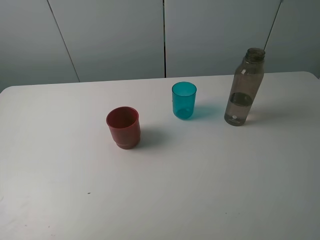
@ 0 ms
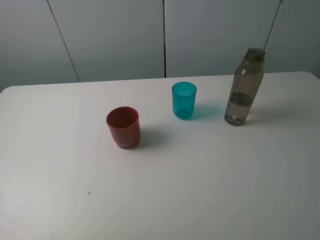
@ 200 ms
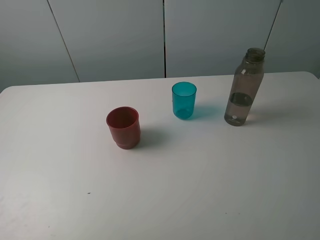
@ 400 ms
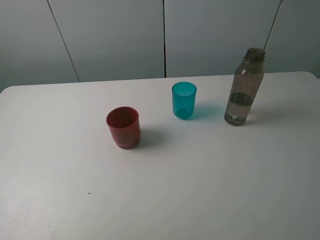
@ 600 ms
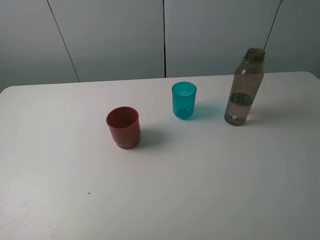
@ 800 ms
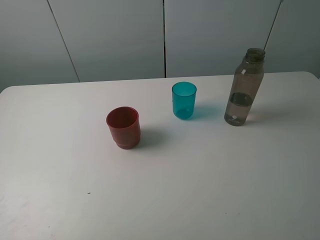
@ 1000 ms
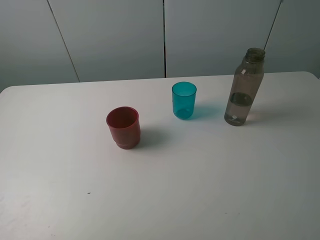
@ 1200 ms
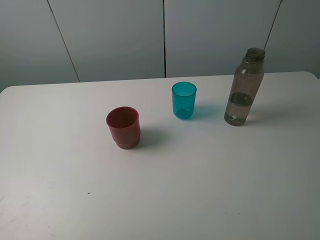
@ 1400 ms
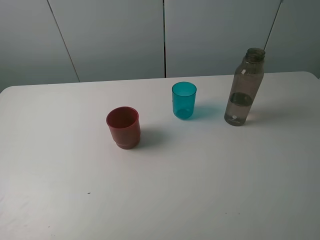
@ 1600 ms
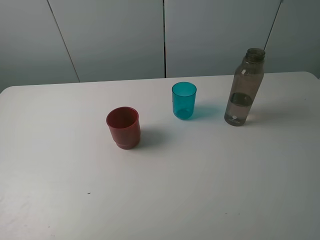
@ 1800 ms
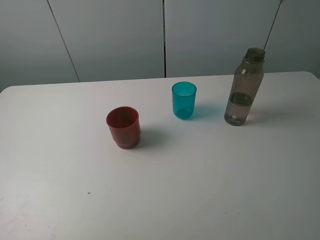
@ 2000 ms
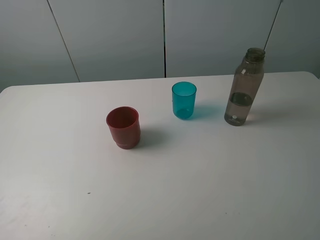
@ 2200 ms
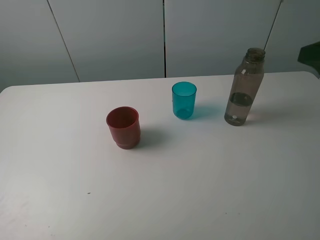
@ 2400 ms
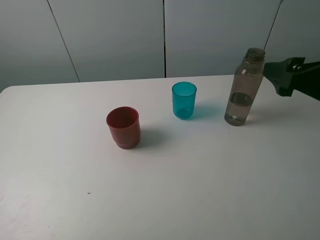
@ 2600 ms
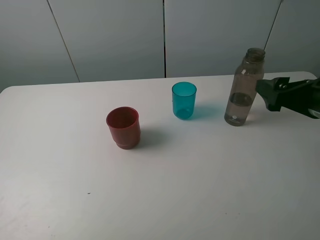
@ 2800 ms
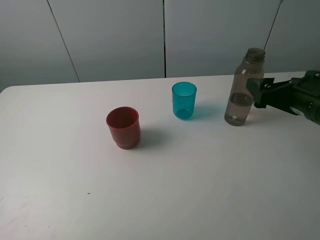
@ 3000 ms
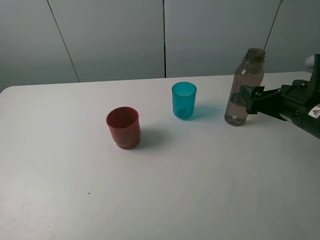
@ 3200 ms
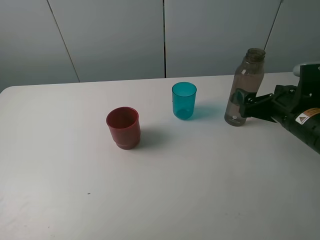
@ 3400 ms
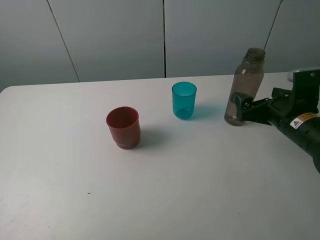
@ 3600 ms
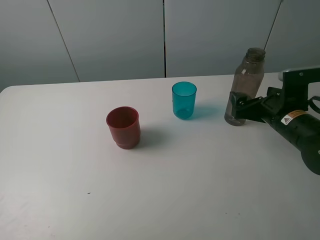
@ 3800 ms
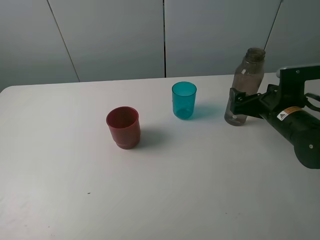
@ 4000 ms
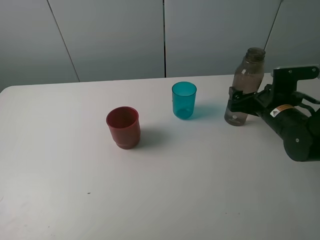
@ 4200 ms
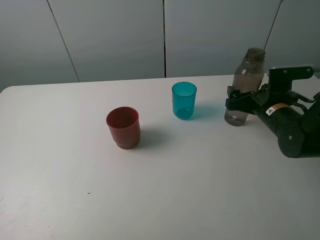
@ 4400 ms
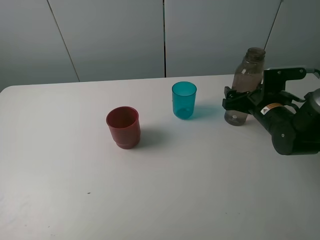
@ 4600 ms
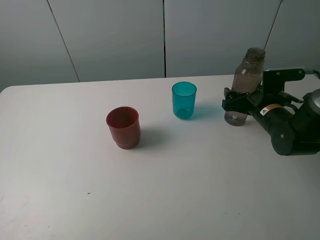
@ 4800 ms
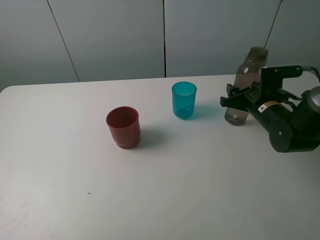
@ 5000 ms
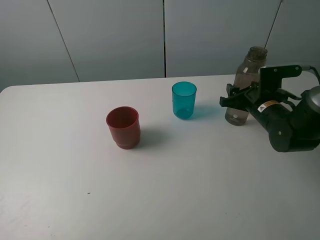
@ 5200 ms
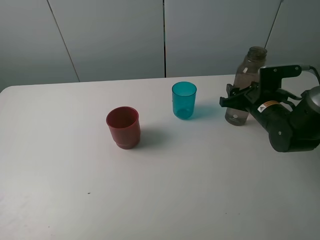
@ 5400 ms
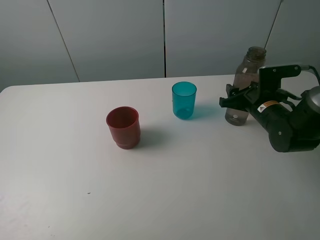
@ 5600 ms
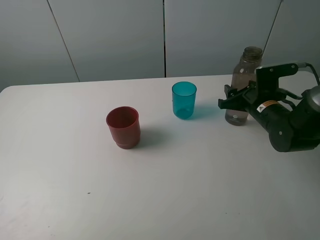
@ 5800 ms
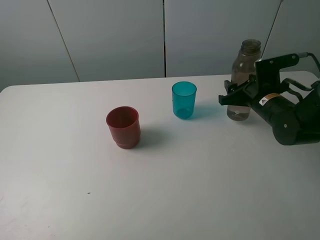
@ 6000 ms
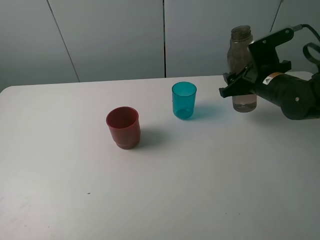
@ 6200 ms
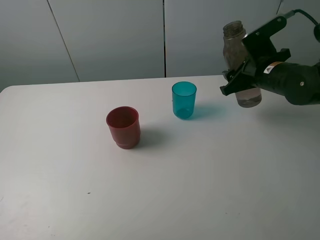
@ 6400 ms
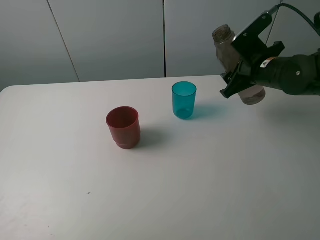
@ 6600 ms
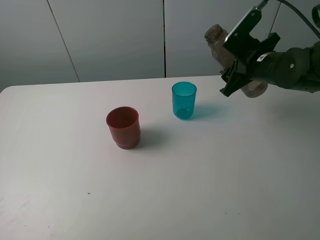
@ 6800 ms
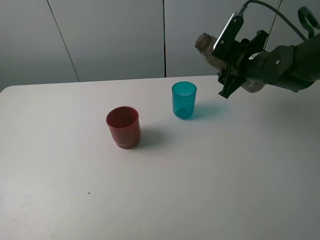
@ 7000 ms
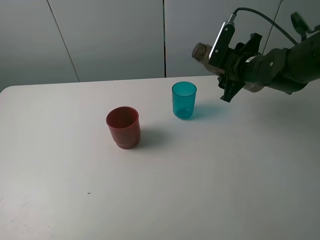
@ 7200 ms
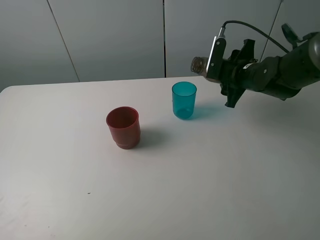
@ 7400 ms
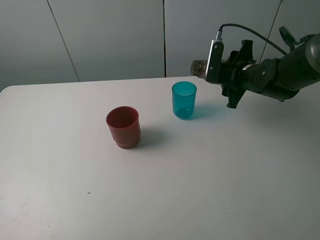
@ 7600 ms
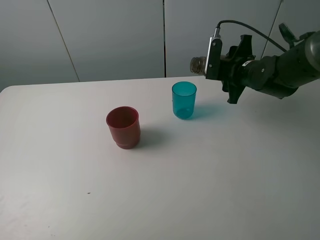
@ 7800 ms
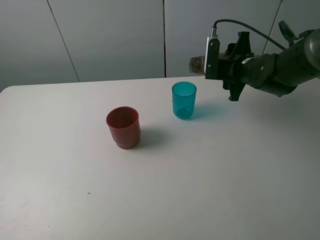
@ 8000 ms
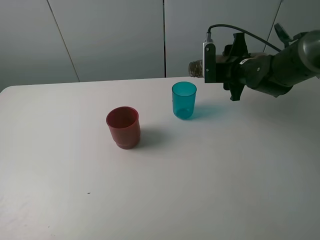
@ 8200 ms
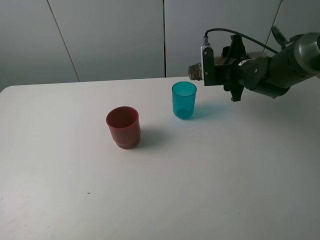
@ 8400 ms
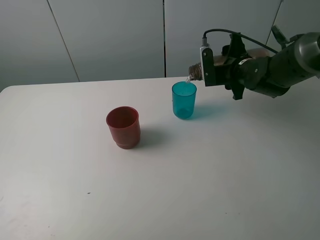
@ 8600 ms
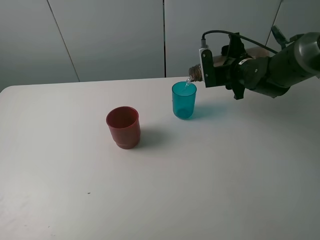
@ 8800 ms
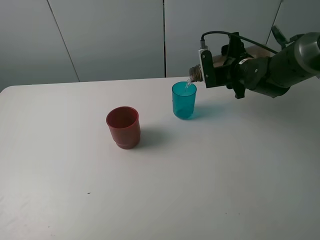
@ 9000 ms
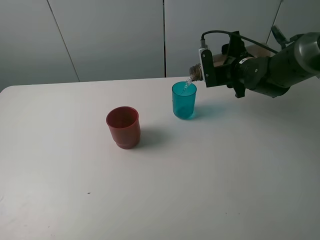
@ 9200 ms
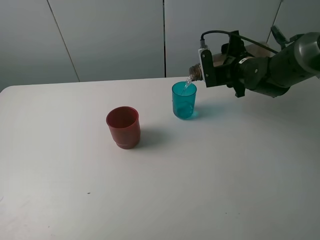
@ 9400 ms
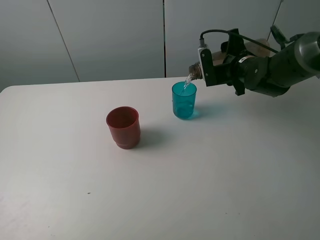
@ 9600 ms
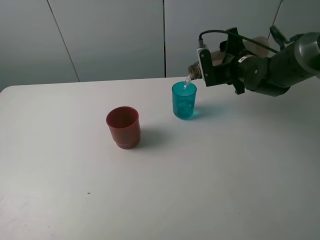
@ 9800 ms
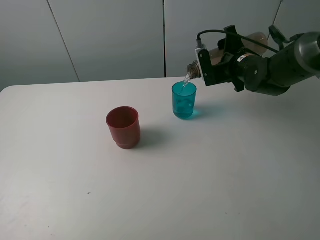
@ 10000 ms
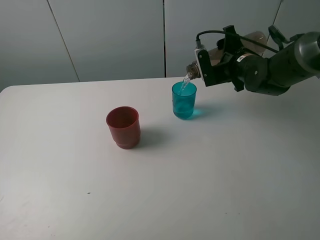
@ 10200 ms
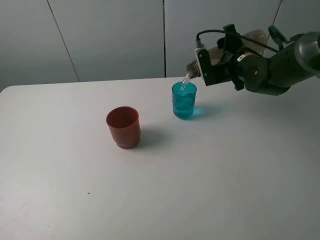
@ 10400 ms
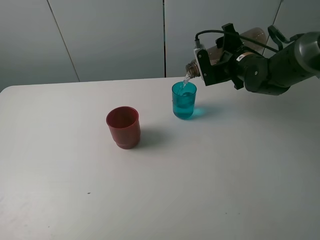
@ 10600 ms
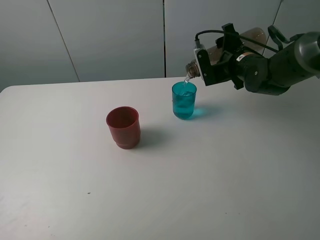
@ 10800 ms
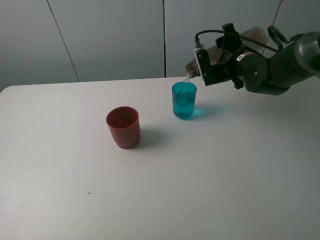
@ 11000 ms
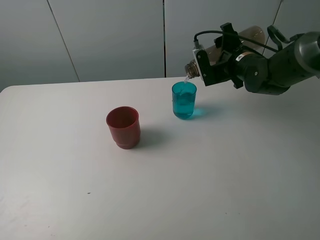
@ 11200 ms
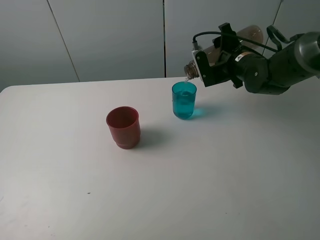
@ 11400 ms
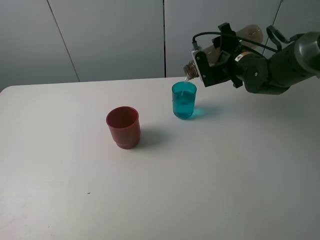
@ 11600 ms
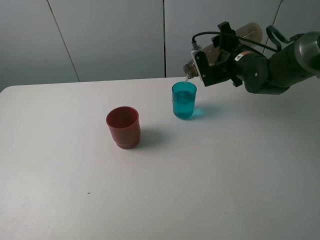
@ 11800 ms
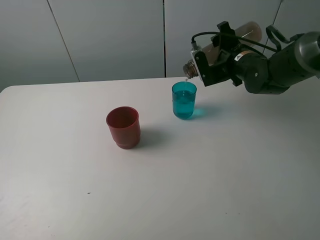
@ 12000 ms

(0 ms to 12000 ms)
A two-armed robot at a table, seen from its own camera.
Task of the whole recording: pick up the bottle and pour water into the cup, then pick up the cup containing water and pour it into another cup.
Step, 0 ms - 5200 ms: Grasp the brown bottle with the right gripper.
0 ms - 1600 ms: The two grippers keep their place.
1600 ms - 3000 ms: The right gripper is displaced forward and downward by about 25 cm.
3000 ms - 4400 ms: The right gripper shifts about 10 cm downward and forward.
4400 ms - 6000 ms: The right gripper closes.
6000 ms - 7600 ms: The right gripper shifts by some 5 cm.
9000 ms - 12000 ms: The grippers move only a little.

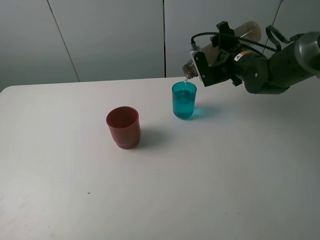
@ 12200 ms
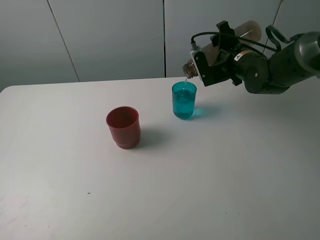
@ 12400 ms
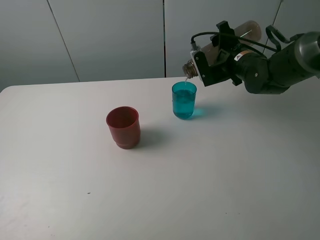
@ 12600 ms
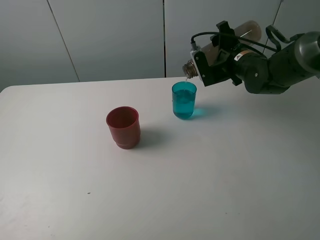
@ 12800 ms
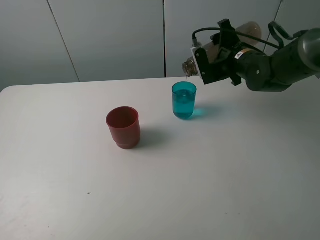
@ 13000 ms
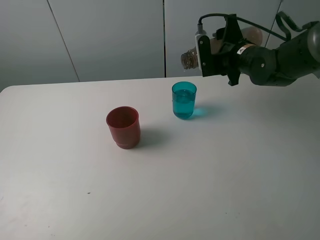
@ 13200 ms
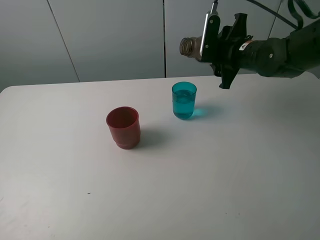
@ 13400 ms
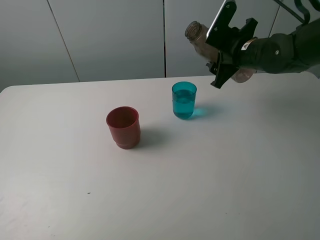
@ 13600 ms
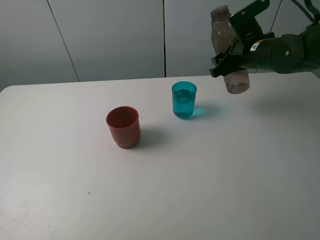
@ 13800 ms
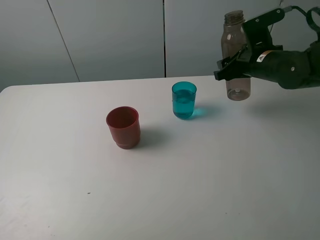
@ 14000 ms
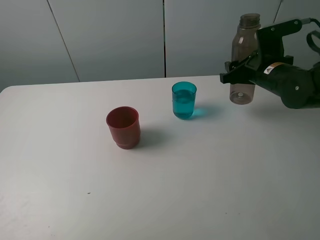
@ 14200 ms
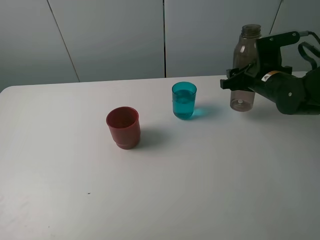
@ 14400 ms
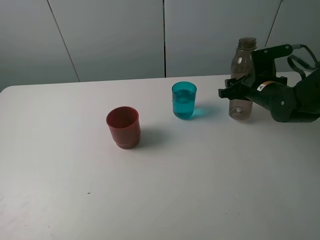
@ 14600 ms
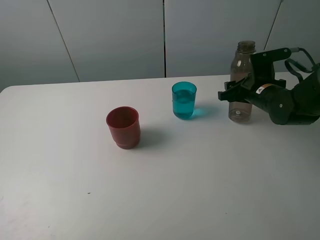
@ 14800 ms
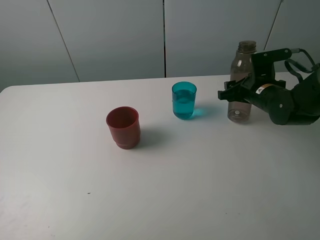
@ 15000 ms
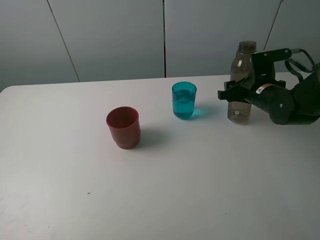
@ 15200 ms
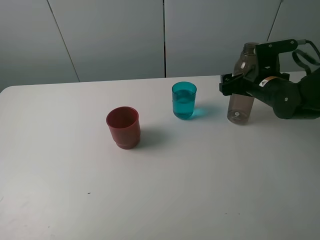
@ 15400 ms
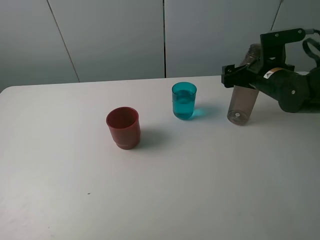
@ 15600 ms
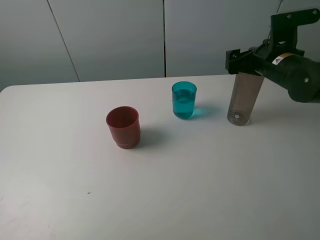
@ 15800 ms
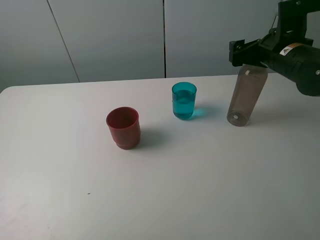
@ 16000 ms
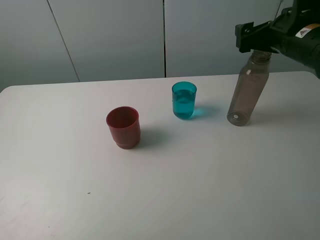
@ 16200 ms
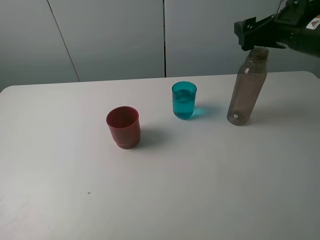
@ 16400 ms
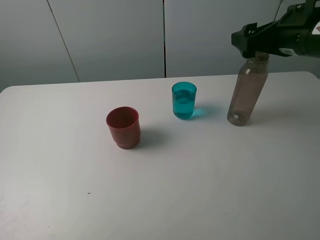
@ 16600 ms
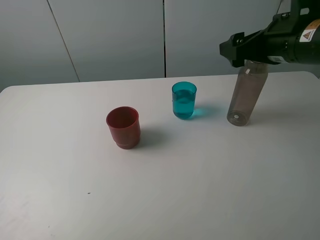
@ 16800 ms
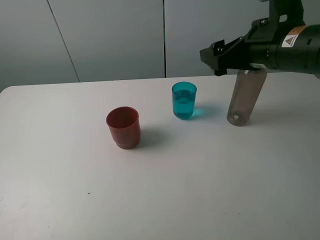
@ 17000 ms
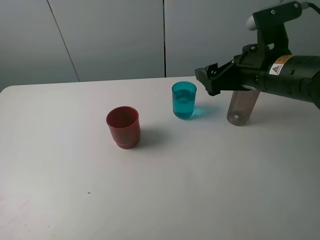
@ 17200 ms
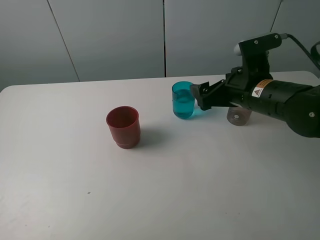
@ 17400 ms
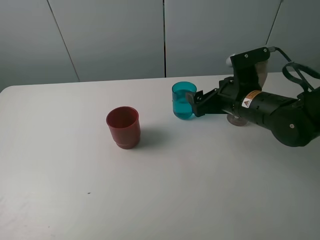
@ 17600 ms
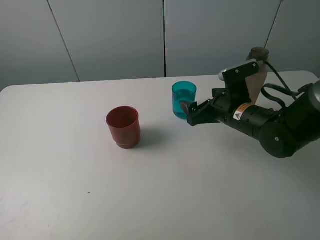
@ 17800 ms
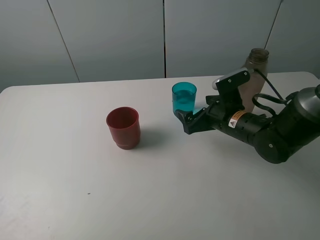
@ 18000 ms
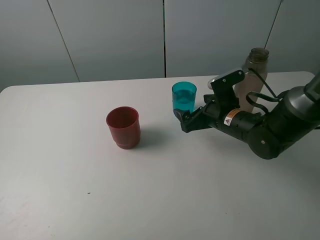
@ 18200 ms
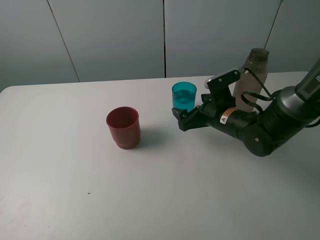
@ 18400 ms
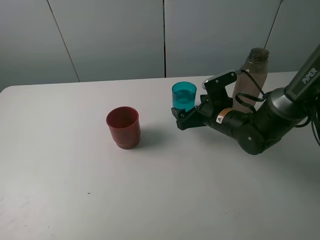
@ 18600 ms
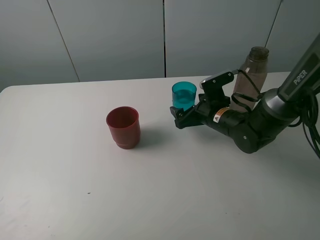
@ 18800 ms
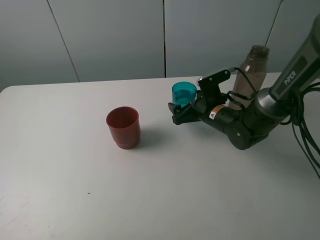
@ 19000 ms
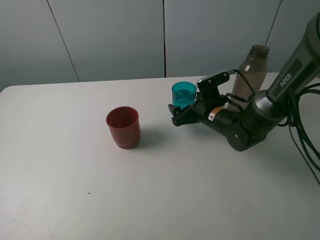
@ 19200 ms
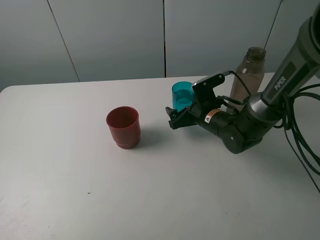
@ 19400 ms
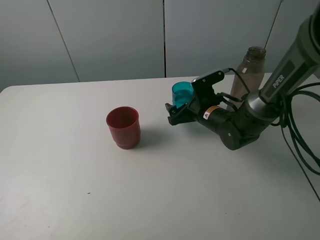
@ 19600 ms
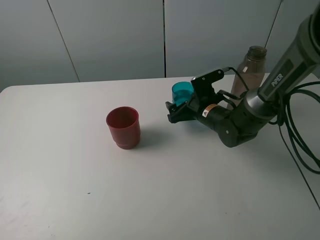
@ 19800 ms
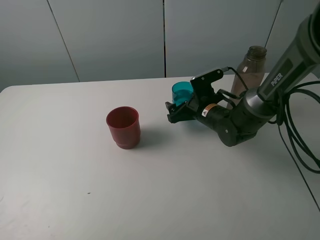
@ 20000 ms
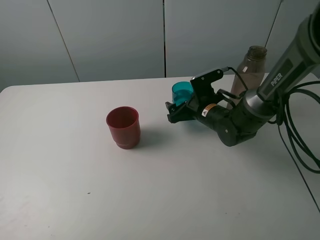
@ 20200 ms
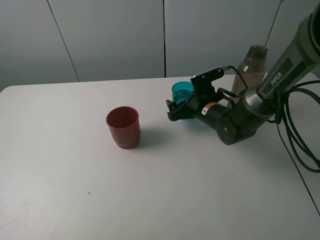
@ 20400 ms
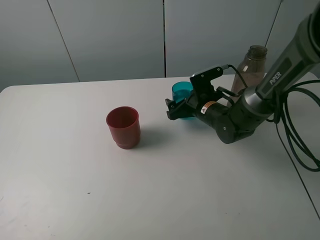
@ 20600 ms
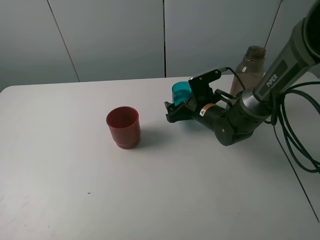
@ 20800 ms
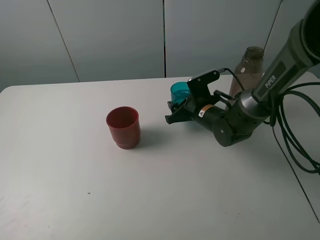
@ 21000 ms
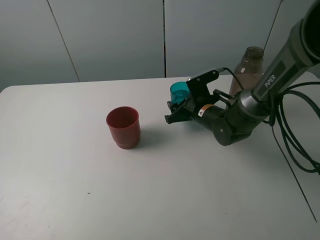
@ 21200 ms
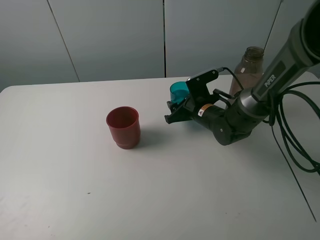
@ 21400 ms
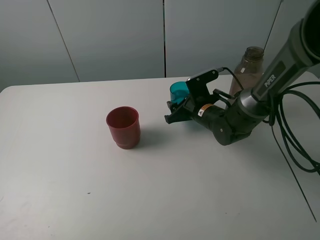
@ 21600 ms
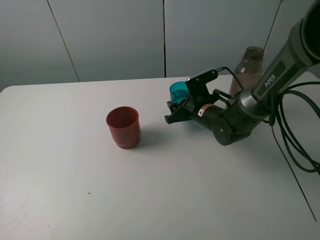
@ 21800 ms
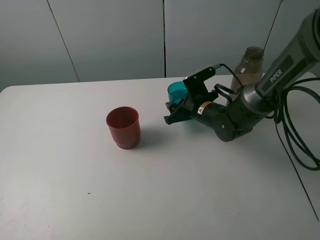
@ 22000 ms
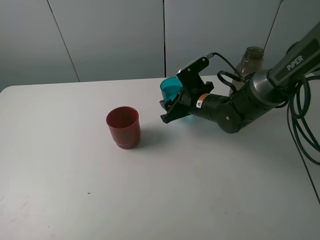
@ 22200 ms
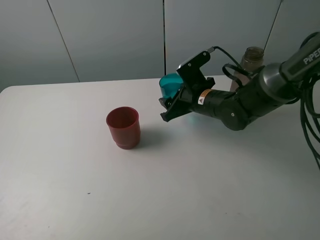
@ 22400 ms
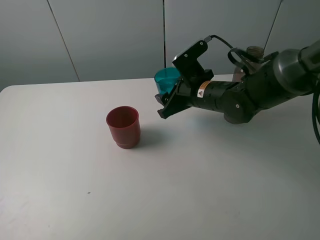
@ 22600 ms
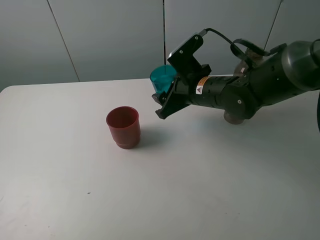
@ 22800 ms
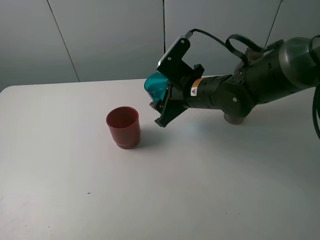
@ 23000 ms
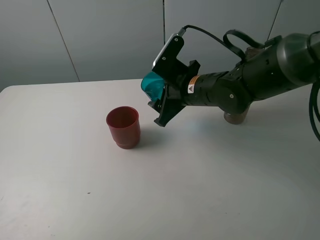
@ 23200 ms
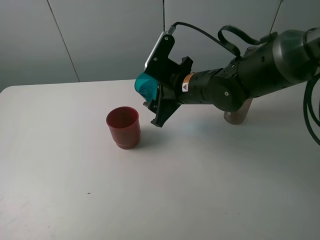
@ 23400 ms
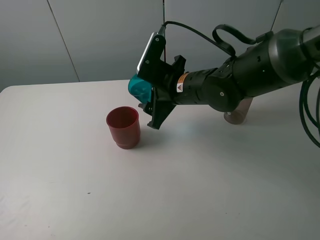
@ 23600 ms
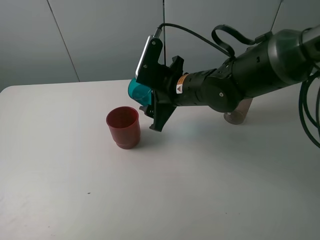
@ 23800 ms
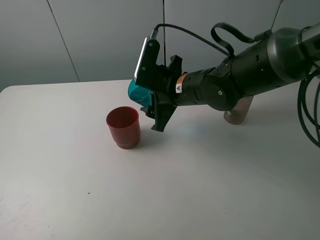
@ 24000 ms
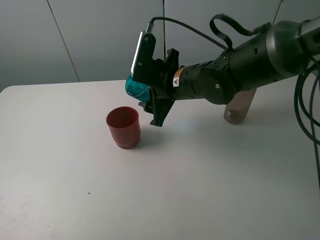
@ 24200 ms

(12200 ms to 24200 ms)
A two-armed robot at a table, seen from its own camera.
Task of the whole recording: pick up the bottle and pour water into the cup, then pick up the cup containing water and pour it into another cup.
Step, 13200 ms - 16000 ms: Place the brown bottle with the right gripper.
Step, 16200 ms - 21000 ms: Grasp the blue cup with the right gripper.
13800 ms - 15200 ms: The right gripper heads downward, covering approximately 5 cm.
15200 ms - 16600 ms: The right gripper is displaced upward and backward by about 15 cm, and opens.
16600 ms - 18200 ms: The right gripper is displaced downward and to the left by approximately 20 cm.
18200 ms - 19800 ms: The right gripper shifts by some 5 cm.
19800 ms - 21200 ms: The right gripper closes.
21200 ms - 22600 ms: The right gripper heads upward, covering approximately 10 cm.
22600 ms - 24200 ms: The right gripper changes place by approximately 5 cm.
